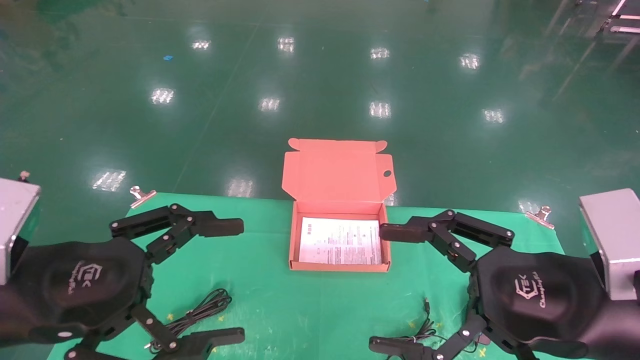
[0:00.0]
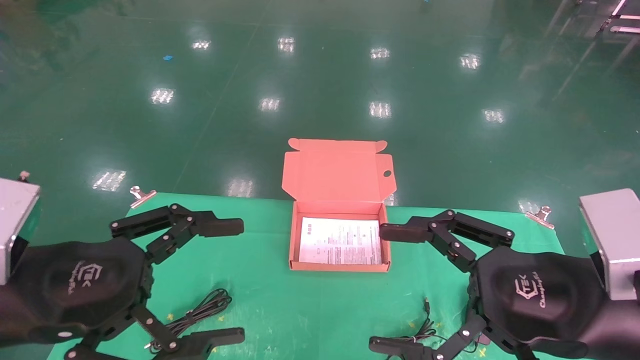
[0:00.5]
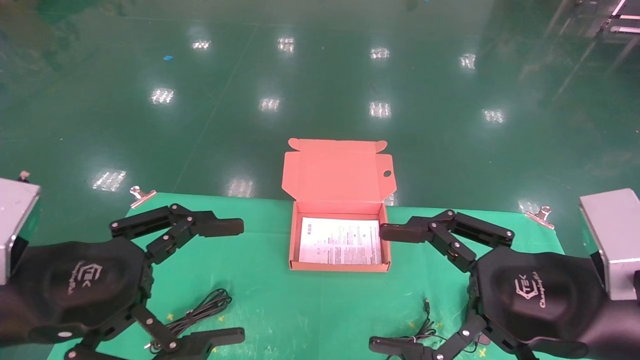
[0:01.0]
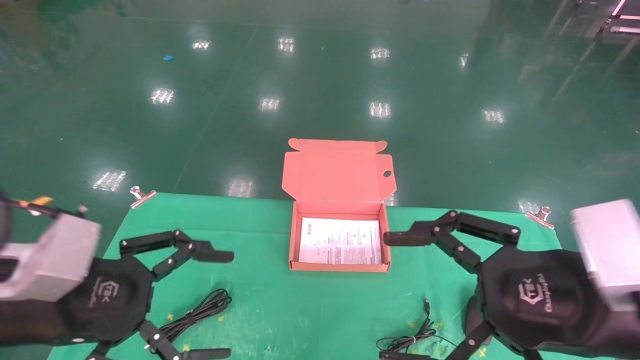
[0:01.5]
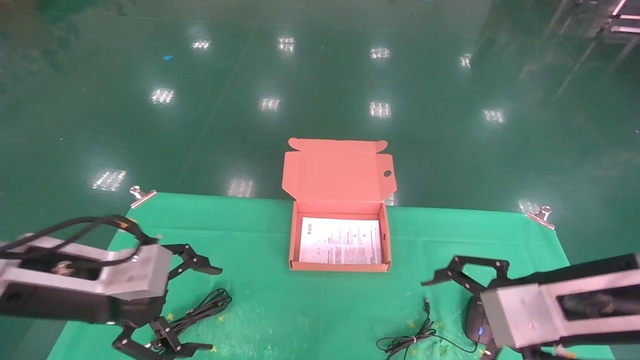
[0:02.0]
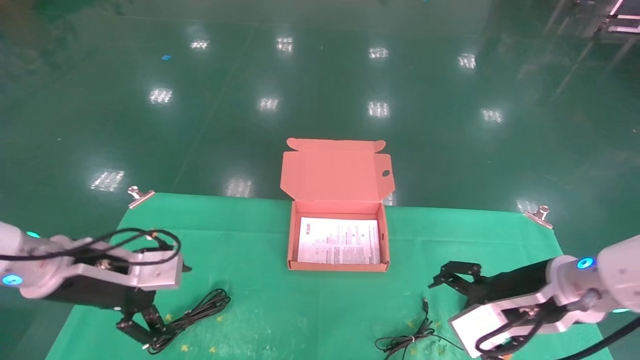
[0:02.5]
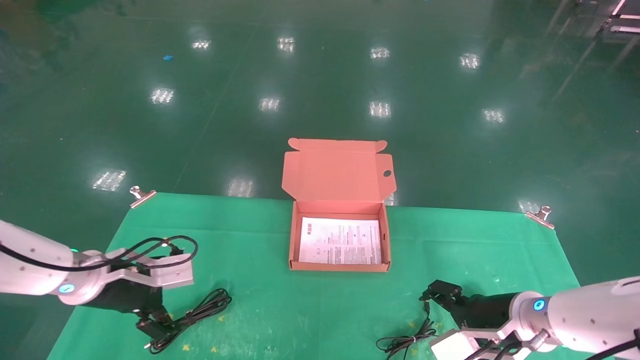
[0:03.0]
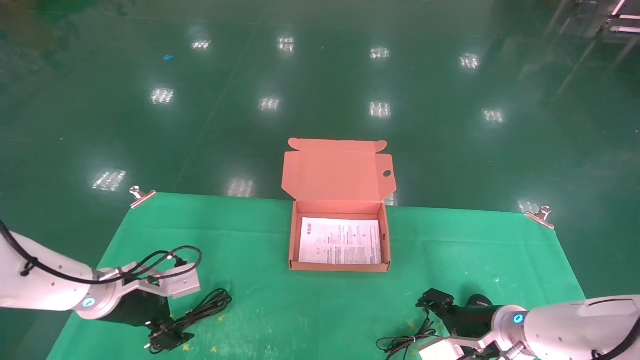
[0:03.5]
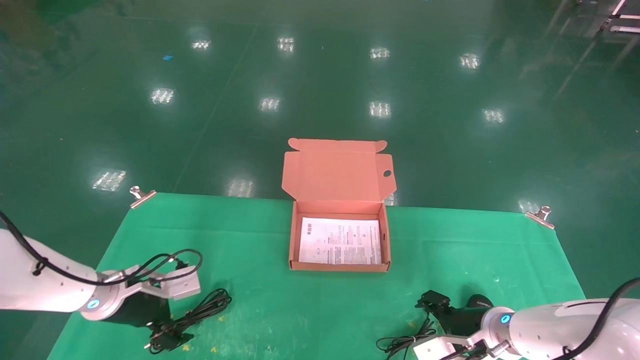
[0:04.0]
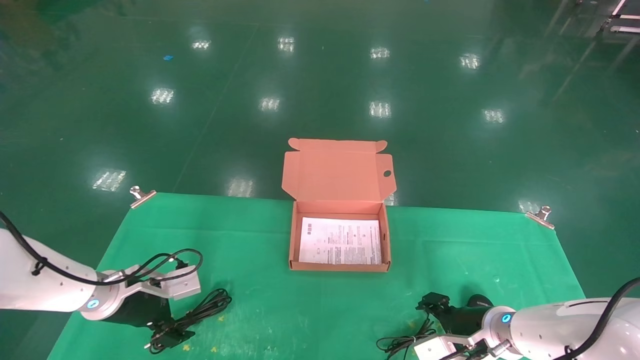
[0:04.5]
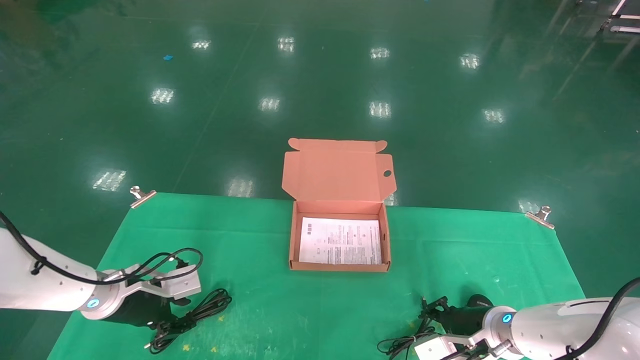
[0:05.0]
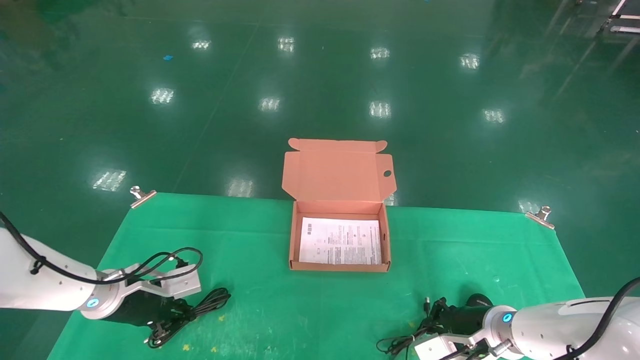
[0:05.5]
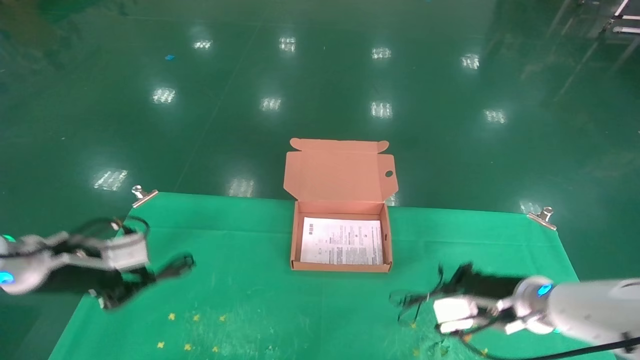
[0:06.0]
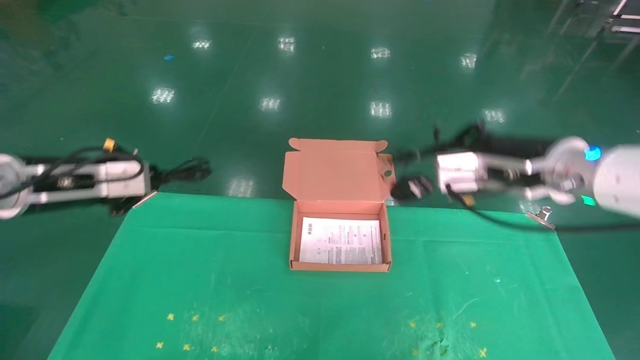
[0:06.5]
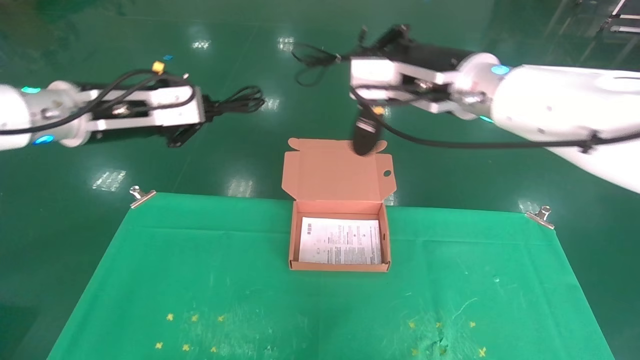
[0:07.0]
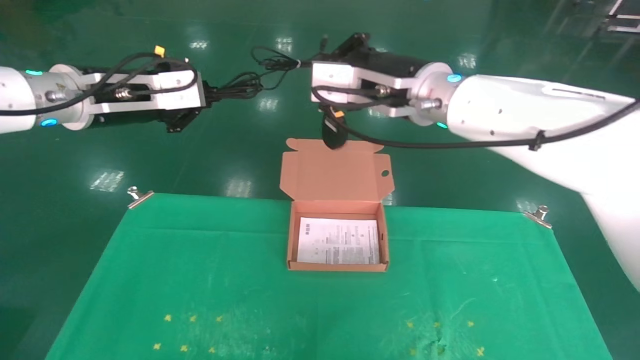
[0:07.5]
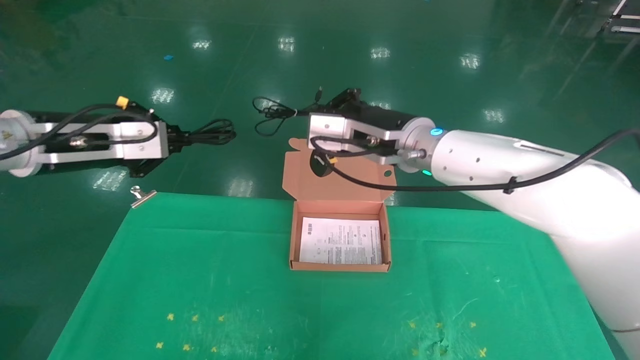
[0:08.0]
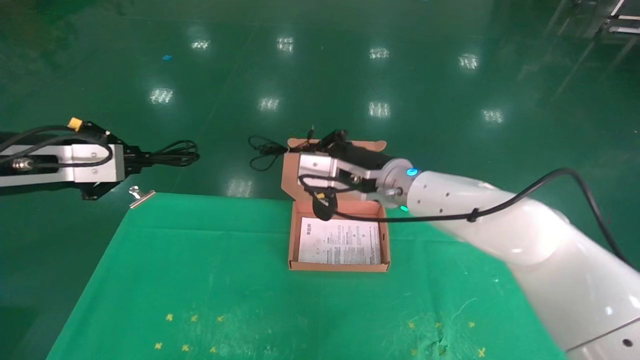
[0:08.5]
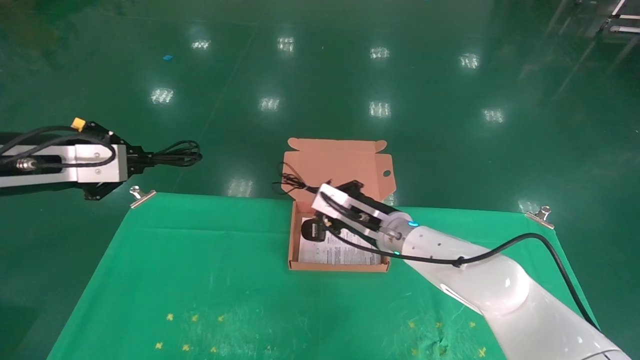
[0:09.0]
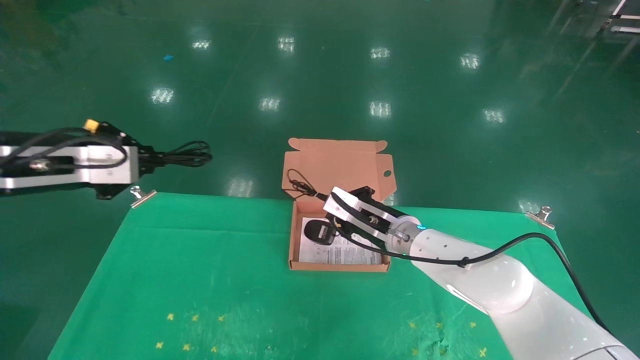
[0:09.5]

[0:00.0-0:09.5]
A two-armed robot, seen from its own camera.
Task of the whole recording: grasp data cable left put into box grasp mouse right put into box.
Step, 0:01.5 to 0:05.5: Grab and pick up both the mouse and power cord from the accessory packaging area at the same time.
0:00.0 to 0:02.0: The left gripper is displaced forward by roughly 5 cm.
0:02.0 to 0:04.0: The right gripper is displaced downward and forward by some 25 cm, while the left gripper goes roughly 20 cm forward and downward.
0:04.0 to 0:05.5: The right gripper closes its fingers. Meanwhile the left gripper closes up.
0:05.5 to 0:07.5: The left gripper moves upward, roughly 30 cm. Meanwhile the right gripper is displaced upward and to the left by roughly 35 cm.
0:07.5 to 0:09.5: The right gripper shifts some 25 cm downward. The left gripper heads downward and to the left, covering roughly 10 cm.

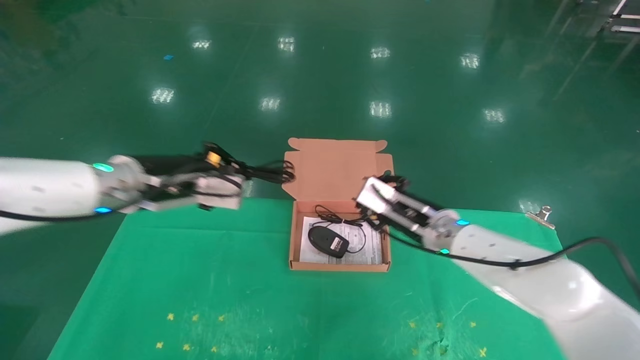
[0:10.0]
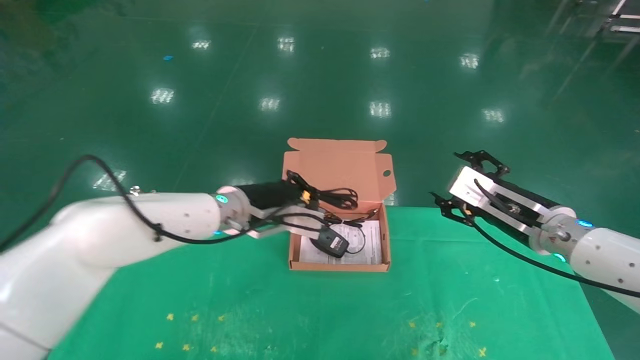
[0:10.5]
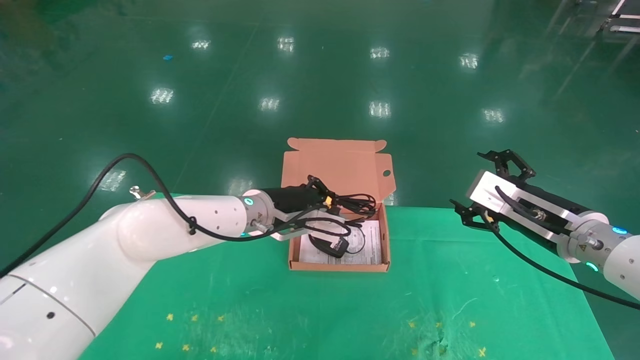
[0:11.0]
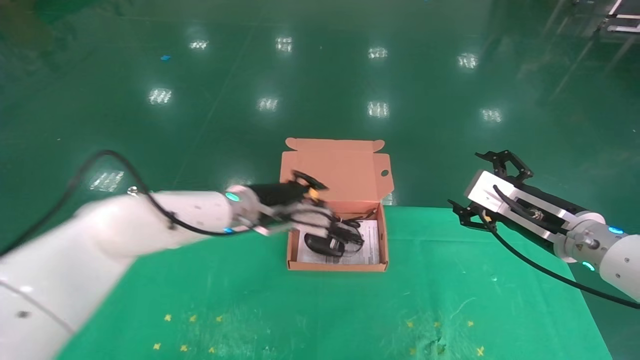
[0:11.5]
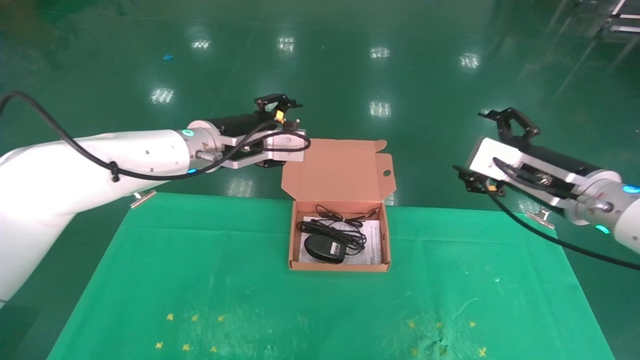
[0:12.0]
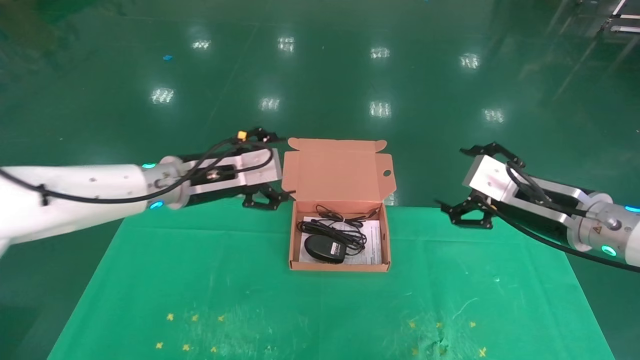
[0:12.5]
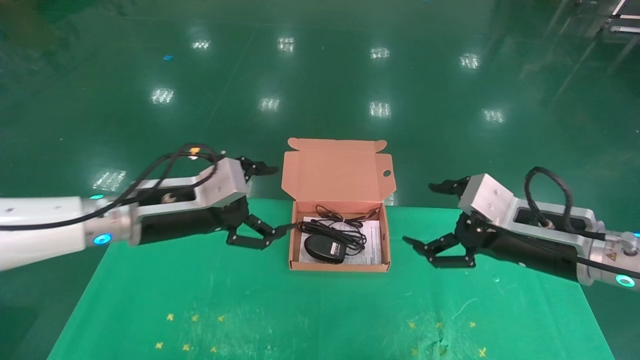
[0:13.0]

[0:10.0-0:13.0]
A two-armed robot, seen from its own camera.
Task of the whole recording: grasp data cable left put into box grasp mouse right put into box.
0:10.0 to 0:11.5: The left gripper goes approximately 15 cm to the right and forward. Meanwhile the right gripper is displaced to the right and backward by about 15 cm, and opens its fingers.
0:11.5 to 0:13.0: The right gripper goes roughly 5 cm backward. Meanwhile the left gripper is displaced to the left and backward by some 15 cm, and opens up.

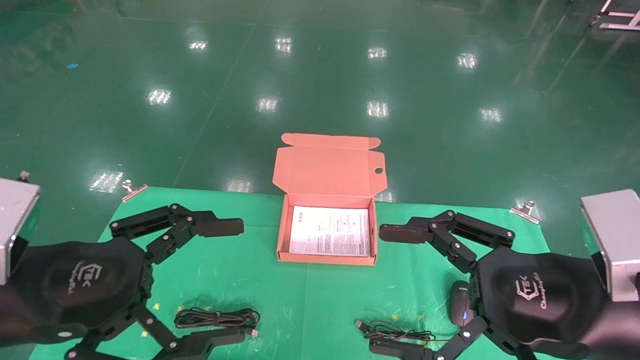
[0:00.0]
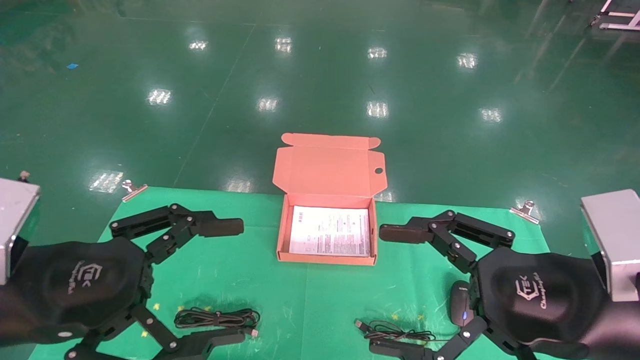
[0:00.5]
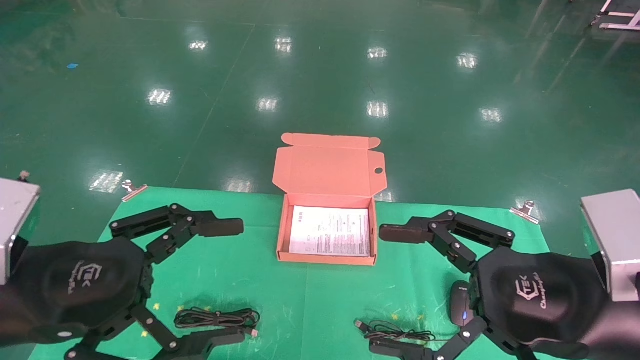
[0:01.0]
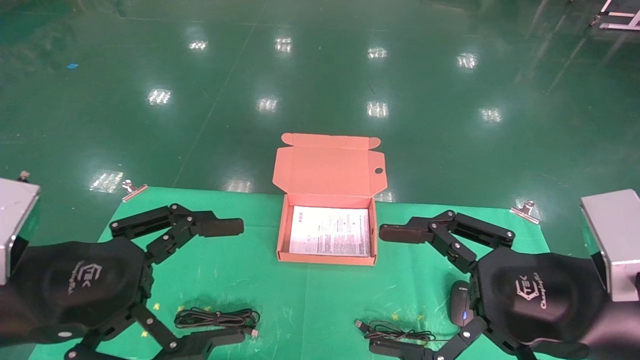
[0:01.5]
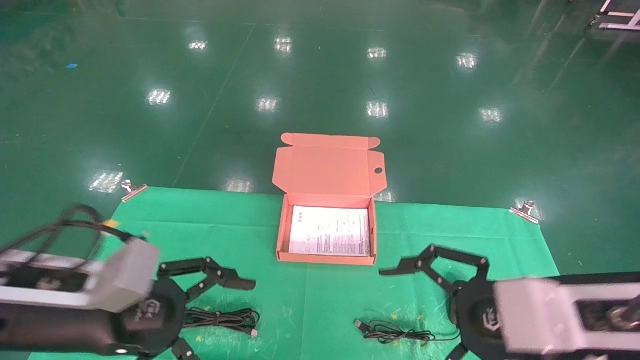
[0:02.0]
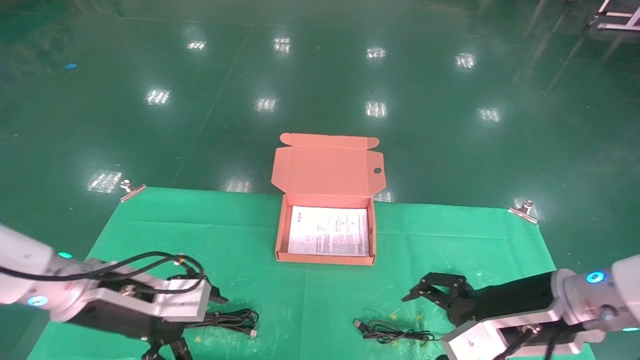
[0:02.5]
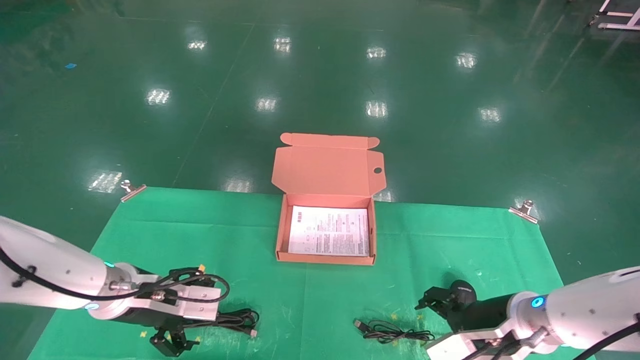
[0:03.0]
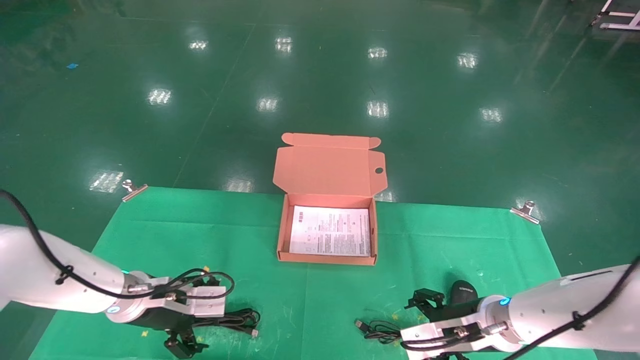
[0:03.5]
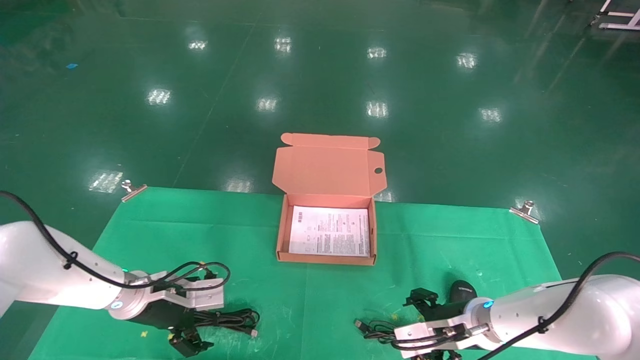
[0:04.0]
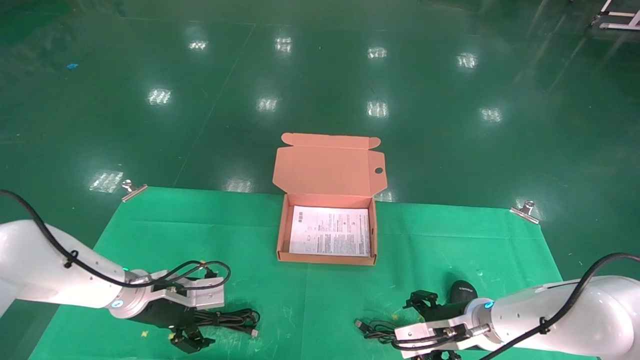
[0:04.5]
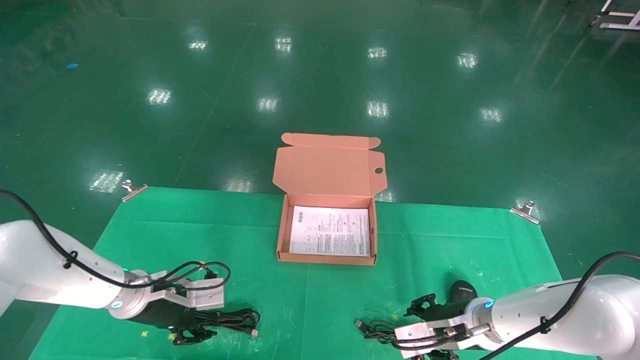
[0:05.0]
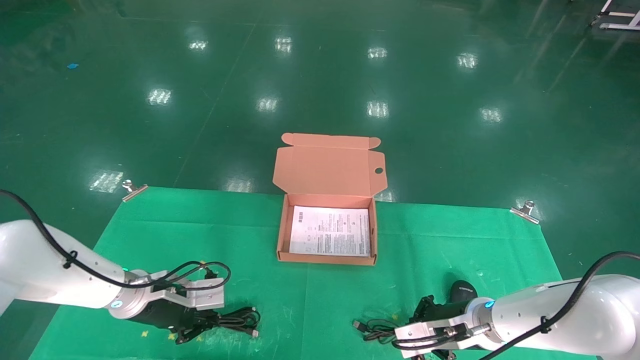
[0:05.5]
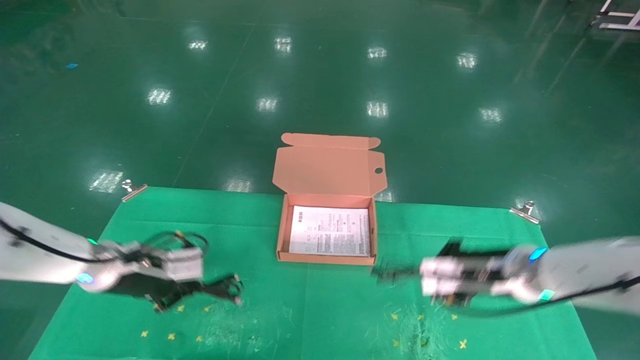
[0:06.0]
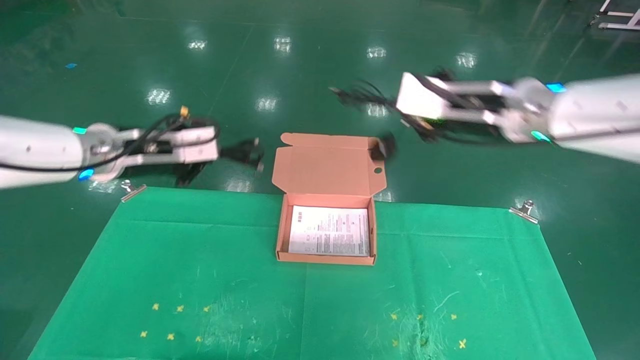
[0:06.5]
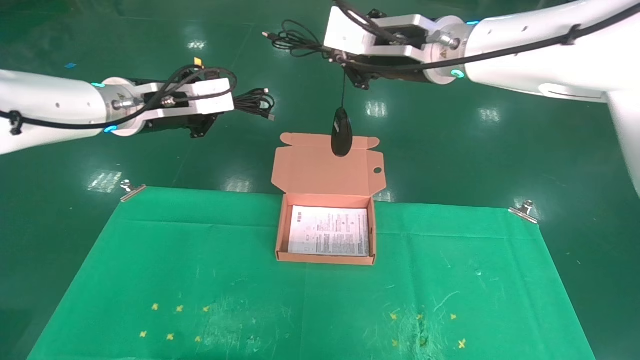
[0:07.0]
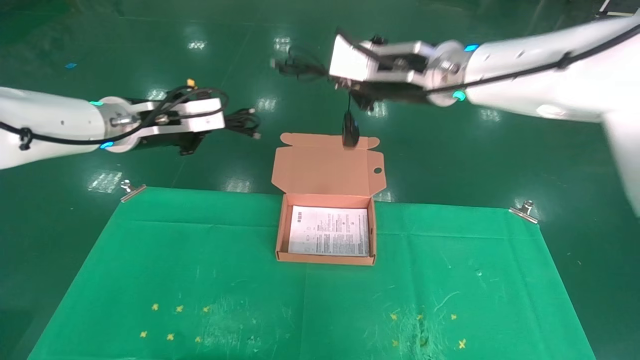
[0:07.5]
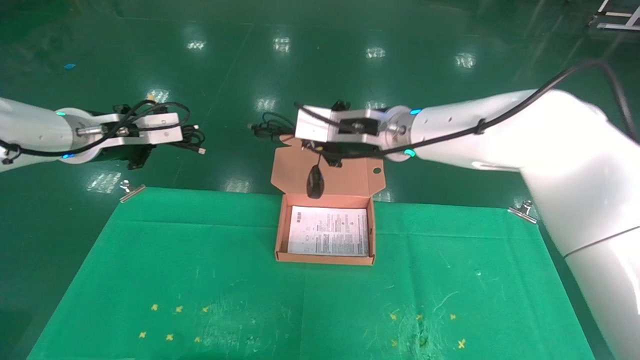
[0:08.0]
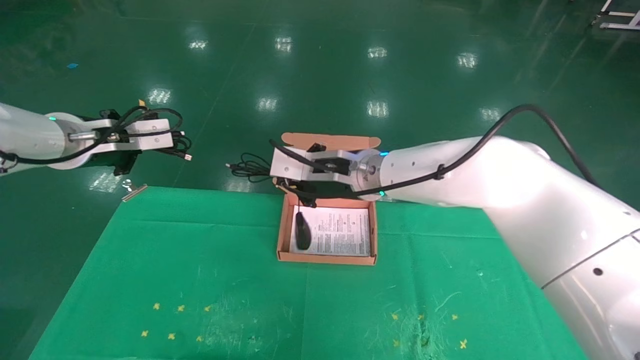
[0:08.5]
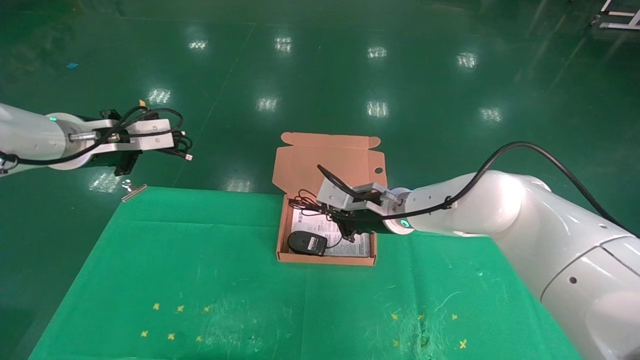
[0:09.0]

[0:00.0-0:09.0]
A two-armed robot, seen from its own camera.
Task of the whole recording: grasp data cable left put into box grasp mouse right put into box.
Step, 0:01.0 to 0:05.5: Grab and pick up both the mouse and power cord from the accessory packaging area at the same time.
0:00.0 to 0:02.0: The left gripper moves forward, approximately 5 cm.
0:02.0 to 0:04.5: Both grippers travel together forward and downward, approximately 20 cm.
0:04.5 to 0:07.0: The grippers both shift upward by approximately 35 cm. The right gripper closes, while the left gripper closes.
0:07.0 to 0:09.0: The left gripper travels to the left by about 10 cm. The right gripper travels downward by some 20 cm.
